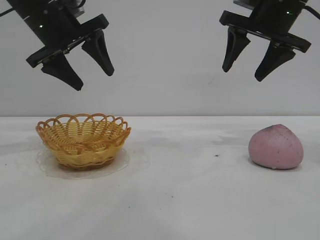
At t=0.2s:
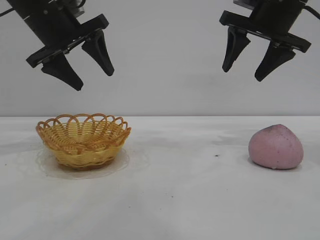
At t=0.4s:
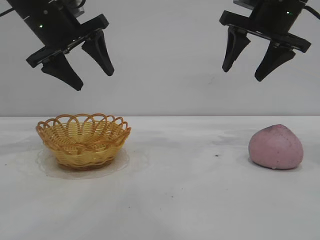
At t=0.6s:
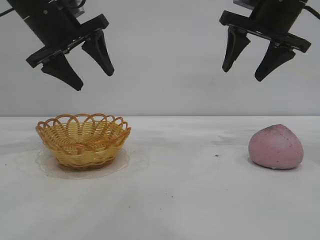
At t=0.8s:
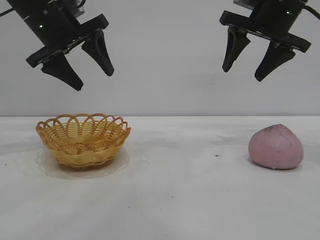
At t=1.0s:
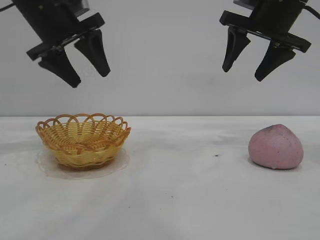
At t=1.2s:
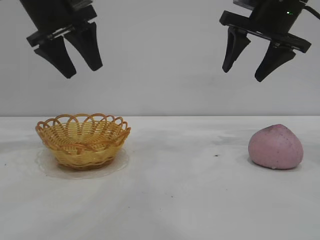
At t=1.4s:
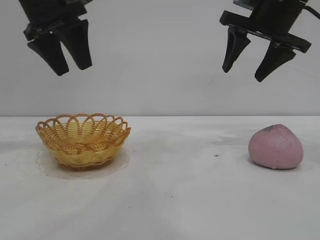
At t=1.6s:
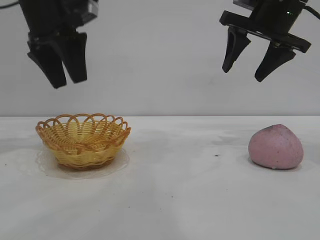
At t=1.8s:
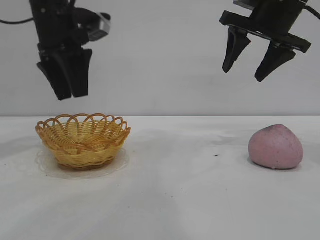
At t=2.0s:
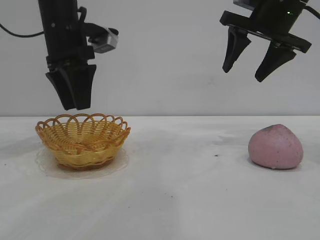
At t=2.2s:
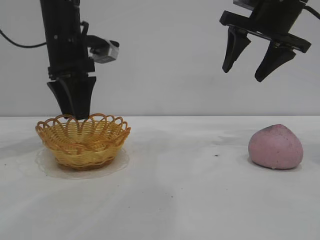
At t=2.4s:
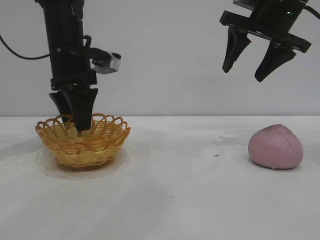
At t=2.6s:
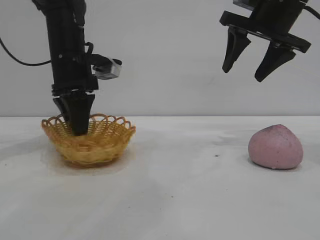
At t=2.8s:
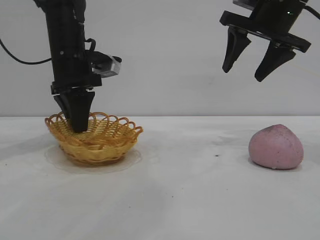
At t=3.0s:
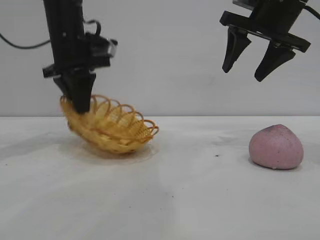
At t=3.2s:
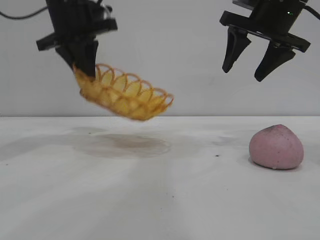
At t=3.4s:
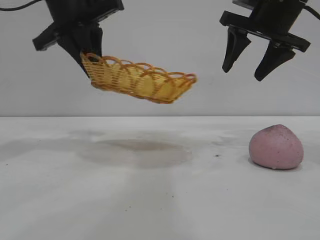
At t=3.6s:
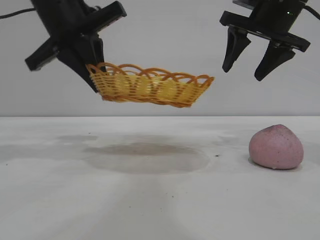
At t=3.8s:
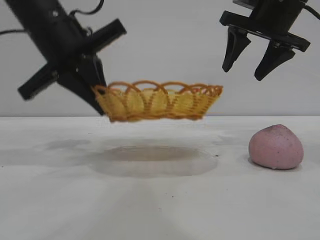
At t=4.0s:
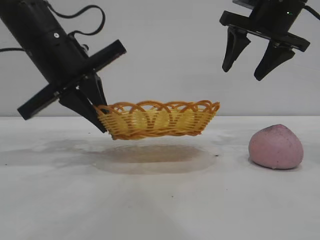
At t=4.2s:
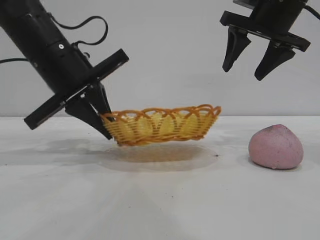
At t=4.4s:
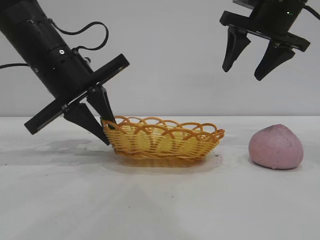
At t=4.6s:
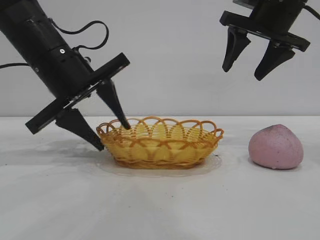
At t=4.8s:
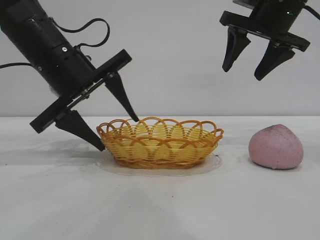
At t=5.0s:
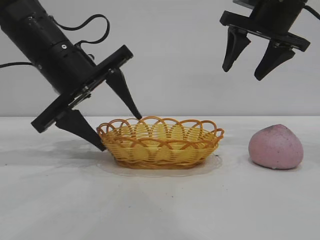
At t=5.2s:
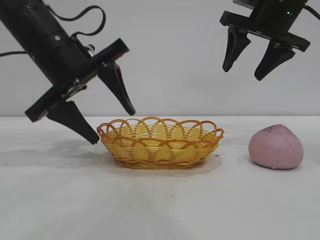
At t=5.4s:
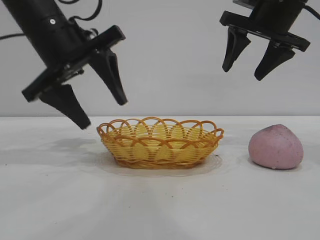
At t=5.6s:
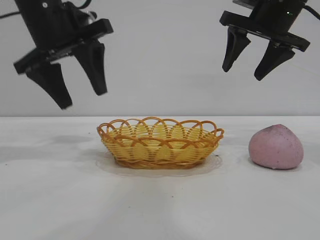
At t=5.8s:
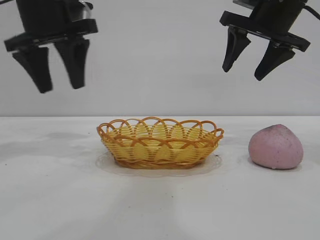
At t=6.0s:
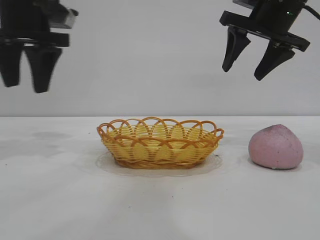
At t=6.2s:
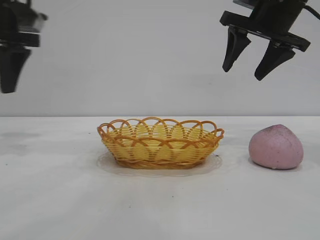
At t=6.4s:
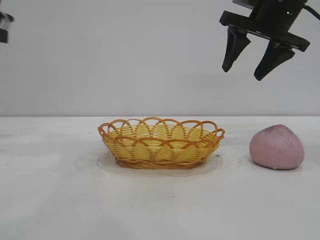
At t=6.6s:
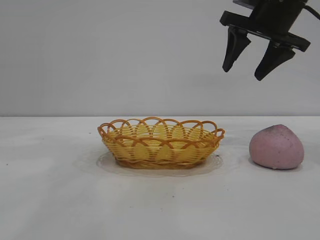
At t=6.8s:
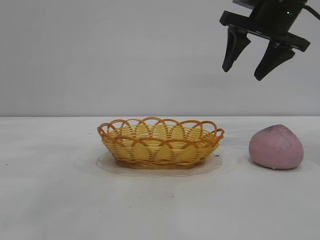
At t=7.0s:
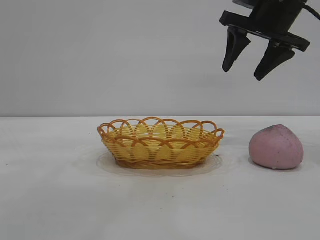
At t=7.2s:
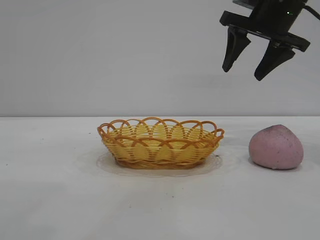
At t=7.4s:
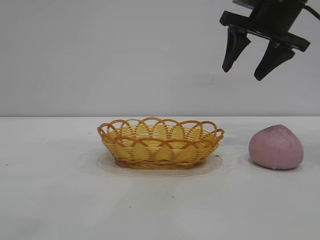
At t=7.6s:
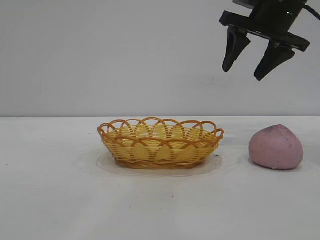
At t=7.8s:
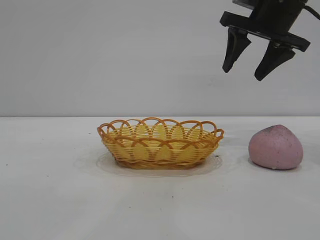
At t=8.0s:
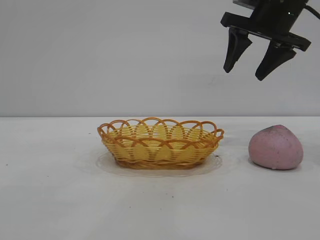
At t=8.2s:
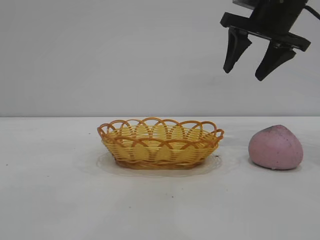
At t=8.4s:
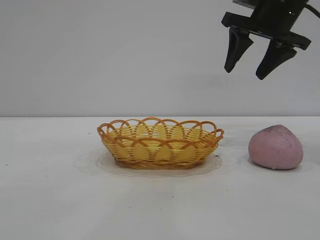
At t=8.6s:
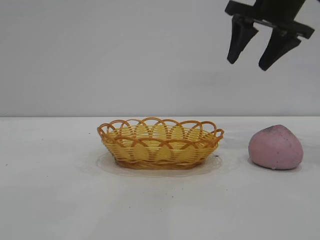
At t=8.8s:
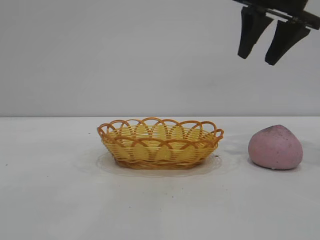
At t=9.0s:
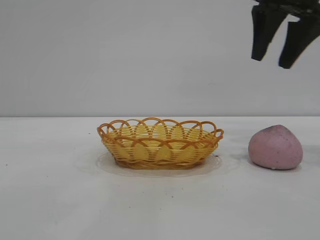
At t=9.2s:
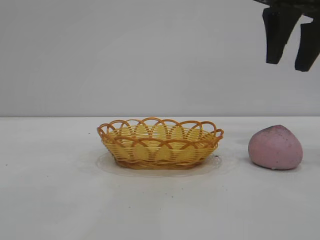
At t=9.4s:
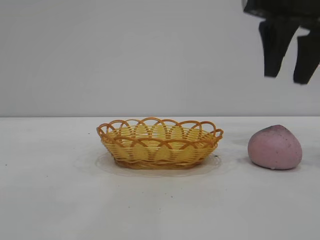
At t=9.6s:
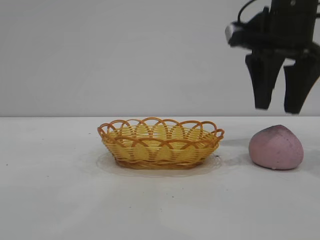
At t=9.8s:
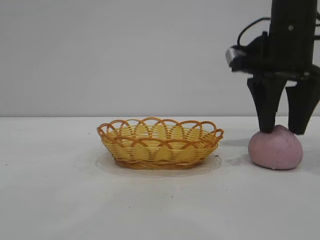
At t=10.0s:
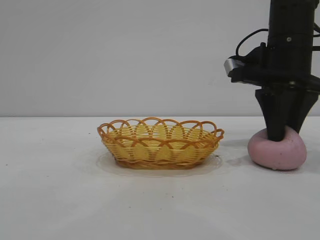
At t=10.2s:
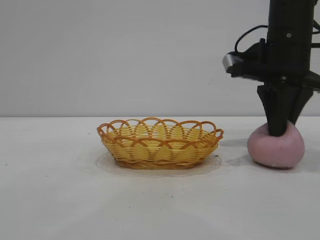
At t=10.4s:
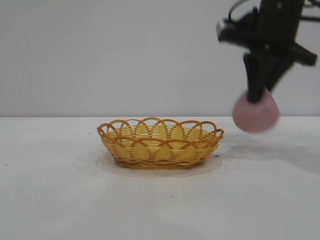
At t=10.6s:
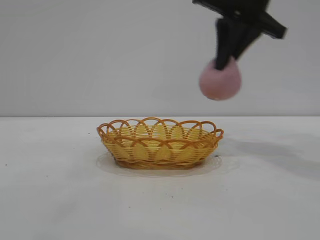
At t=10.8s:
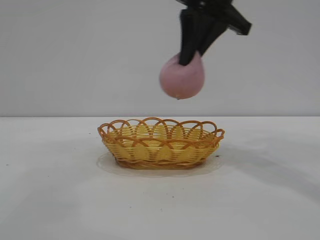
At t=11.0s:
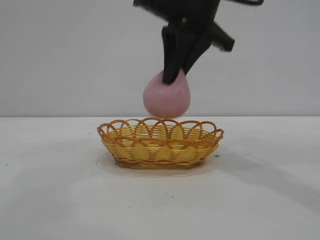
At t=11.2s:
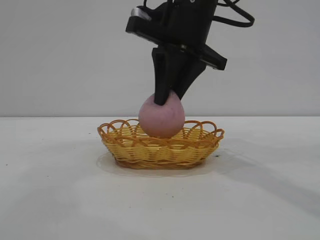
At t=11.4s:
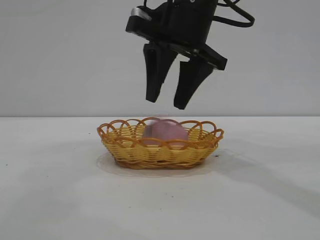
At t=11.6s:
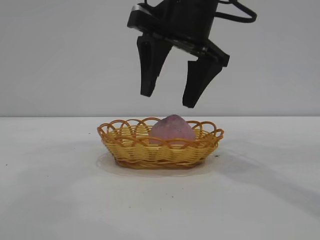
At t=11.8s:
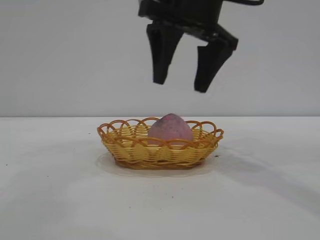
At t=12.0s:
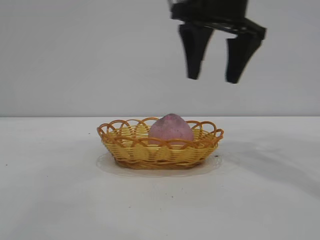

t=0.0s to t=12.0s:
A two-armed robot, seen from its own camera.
Task of the whole recording: pick up the peach and put it into the basket.
Step, t=0.0s to t=5.6s: Move the basket to the center of view.
Step, t=5.8s to t=10.2s: Pick up the peach.
Step, t=10.6s to t=11.6s: place the peach into the basket.
